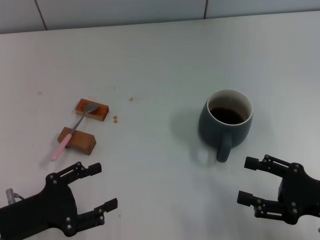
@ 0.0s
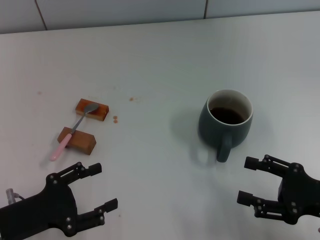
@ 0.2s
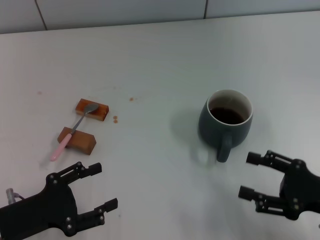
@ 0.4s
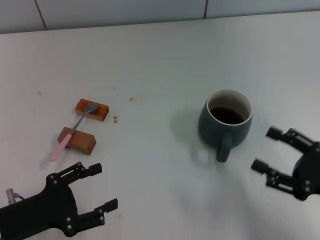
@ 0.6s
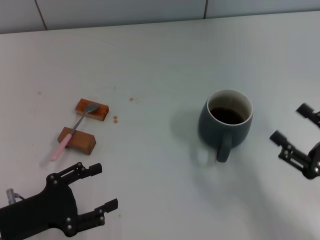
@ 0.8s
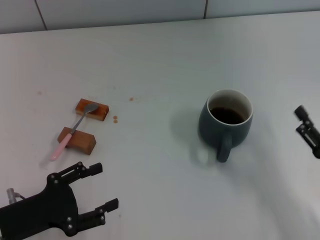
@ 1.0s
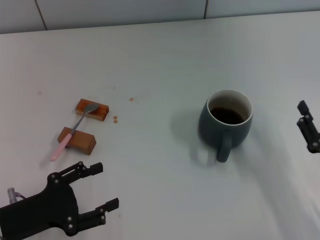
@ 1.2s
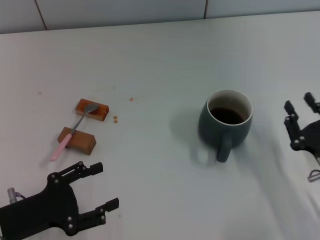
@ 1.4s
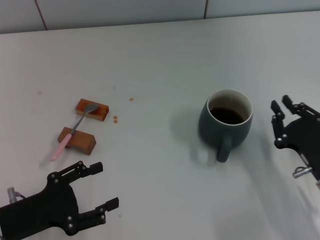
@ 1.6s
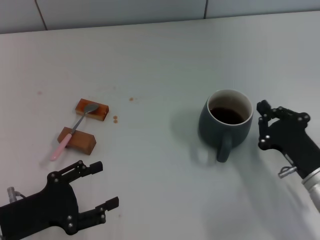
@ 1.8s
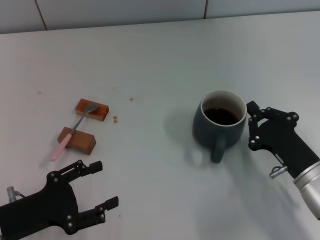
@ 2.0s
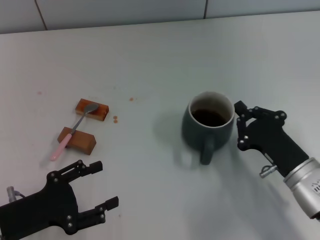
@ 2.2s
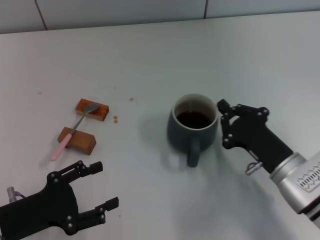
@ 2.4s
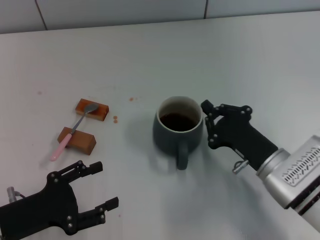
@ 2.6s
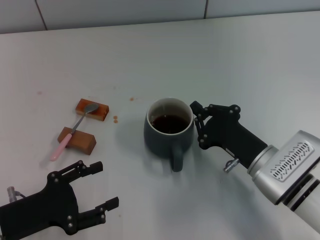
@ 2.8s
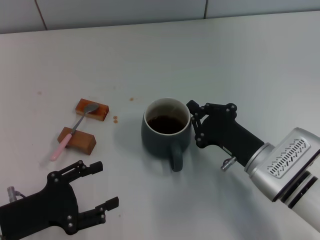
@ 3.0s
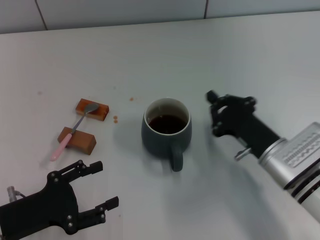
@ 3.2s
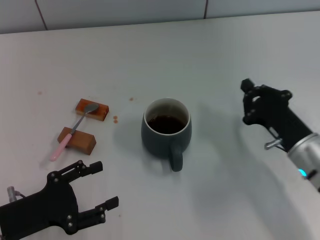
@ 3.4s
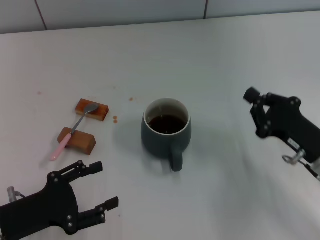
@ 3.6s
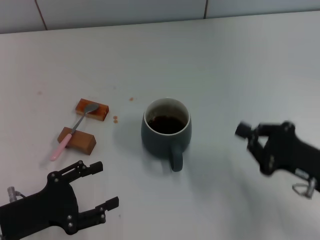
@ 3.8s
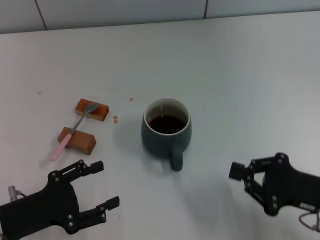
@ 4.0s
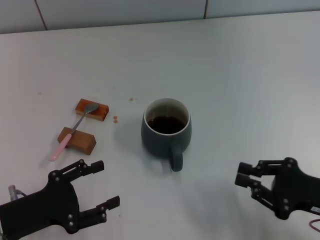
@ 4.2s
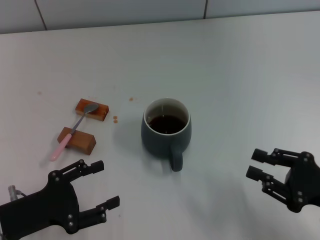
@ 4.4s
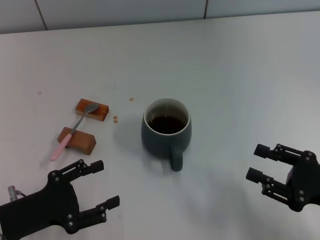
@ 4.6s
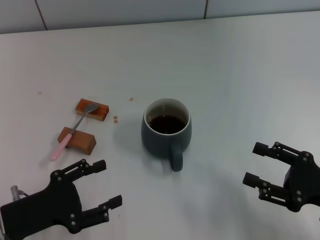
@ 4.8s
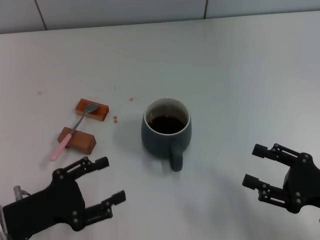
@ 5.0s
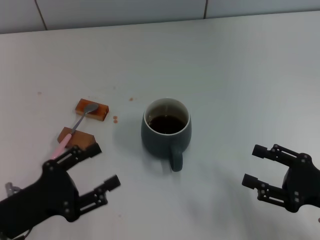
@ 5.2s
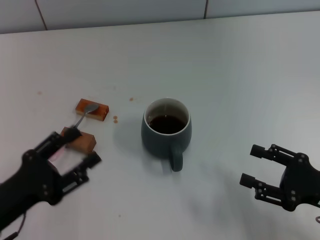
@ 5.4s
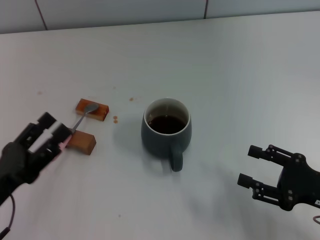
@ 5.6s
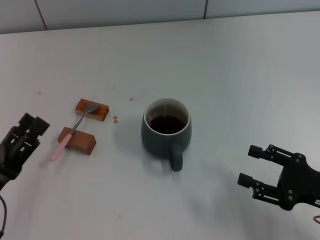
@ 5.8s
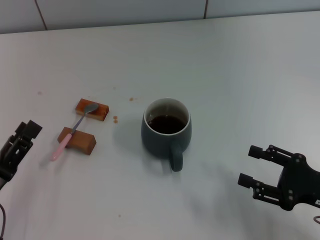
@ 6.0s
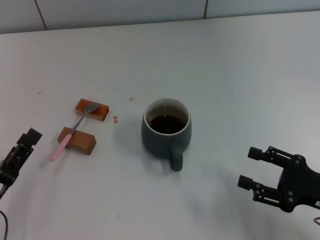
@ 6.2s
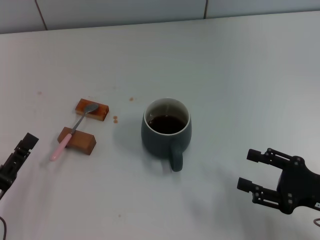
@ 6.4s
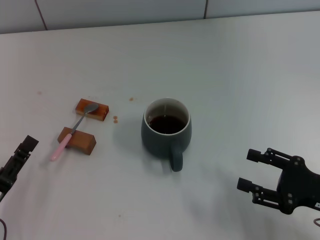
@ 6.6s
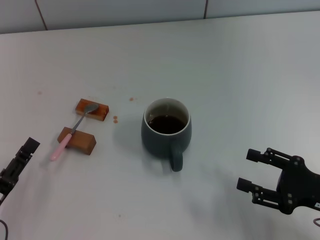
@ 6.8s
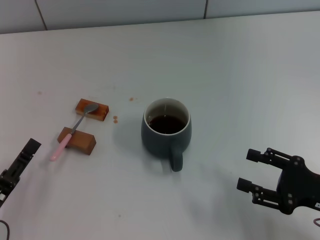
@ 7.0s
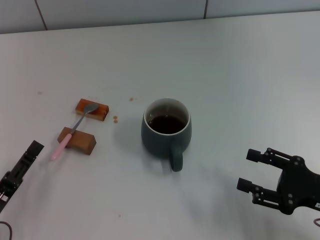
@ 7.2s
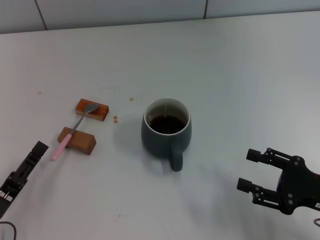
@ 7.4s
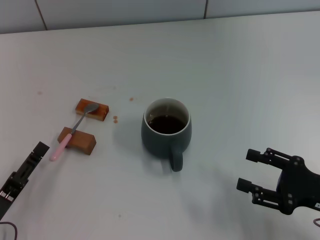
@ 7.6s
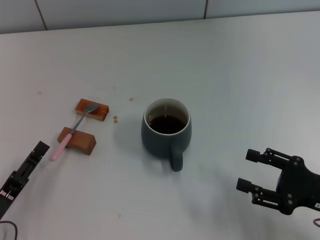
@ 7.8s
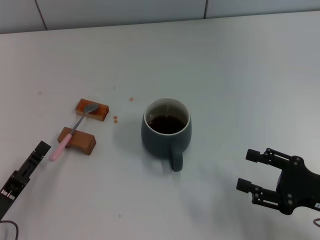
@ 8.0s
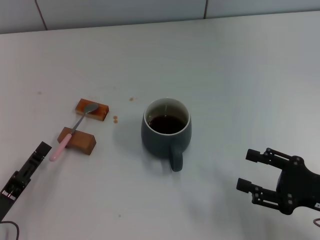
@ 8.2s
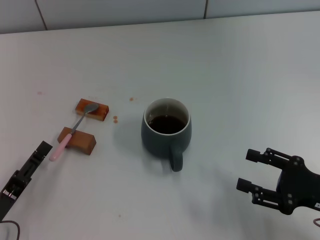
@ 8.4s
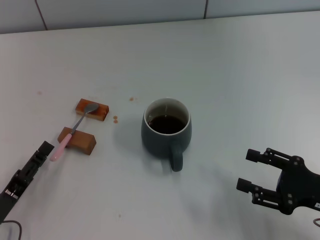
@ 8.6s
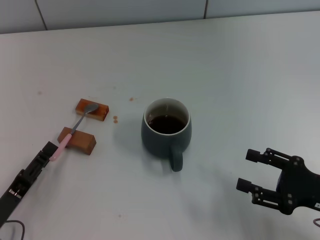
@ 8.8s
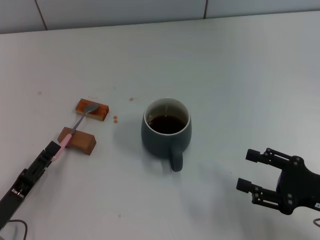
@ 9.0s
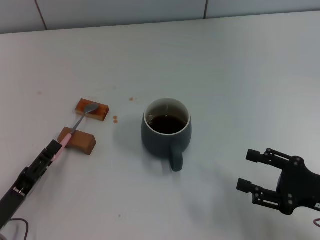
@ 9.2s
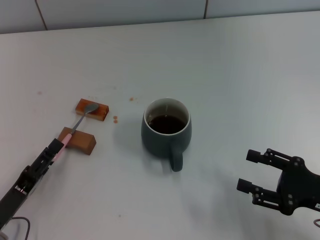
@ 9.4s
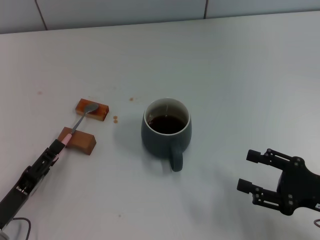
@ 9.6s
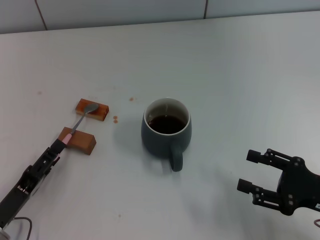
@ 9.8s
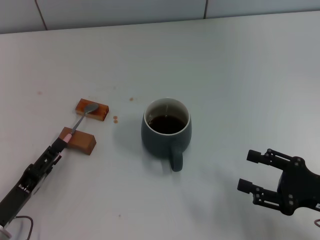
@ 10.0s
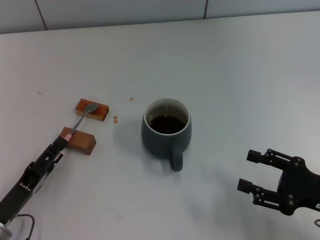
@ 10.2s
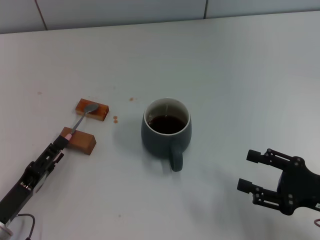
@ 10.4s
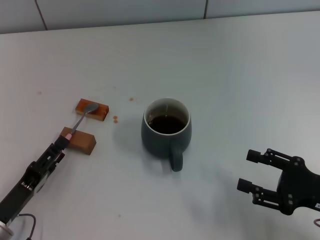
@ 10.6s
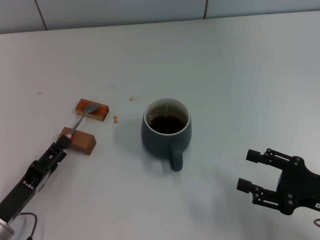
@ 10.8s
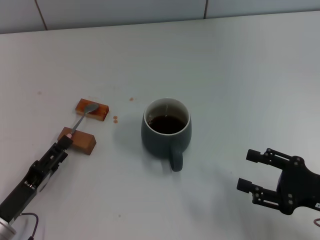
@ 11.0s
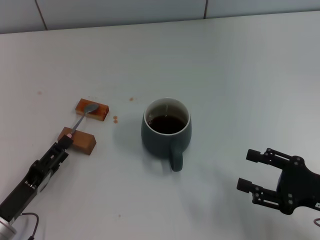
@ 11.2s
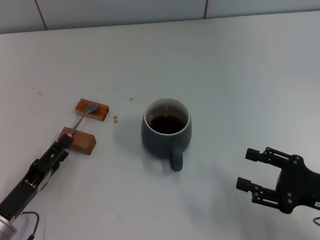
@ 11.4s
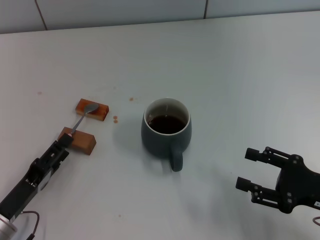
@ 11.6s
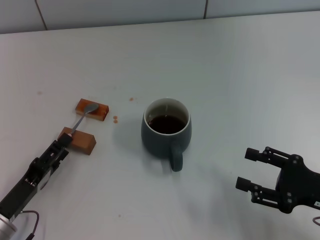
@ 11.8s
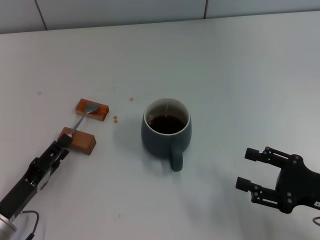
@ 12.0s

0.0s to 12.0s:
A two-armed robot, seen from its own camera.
Task of the whole recording: Move the grey cup to the center, lift the pink spoon, stir it three times in the cup, and put the spoon into the cup.
Step, 0.0s to 3.4s: Move the cup with coffee to the center of view with the right gripper.
0.0s to 1.6s: The right gripper ends up about 5 cm from where it was, and closes.
1.6s to 3.0s: The right gripper heads to the left, covering about 10 cm, and closes up.
3.0s to 4.4s: The right gripper travels to the right and backward by roughly 15 cm.
4.4s to 6.0s: The right gripper opens up.
6.0s to 7.6s: The grippers stay close to where they were, moving slightly.
7.6s to 9.0s: There are only small adjustments of the grippers.
9.0s to 10.4s: Neither gripper changes place.
10.4s to 12.0s: The two grippers keep their place.

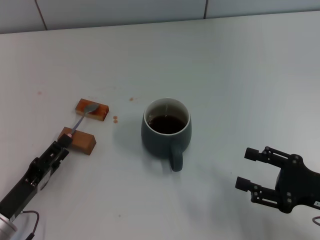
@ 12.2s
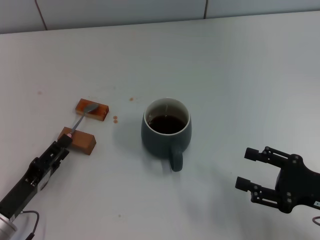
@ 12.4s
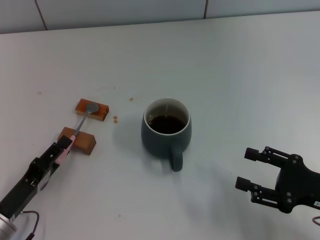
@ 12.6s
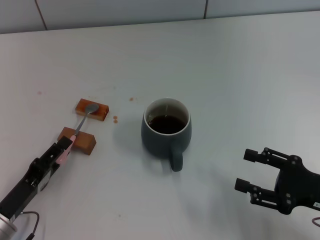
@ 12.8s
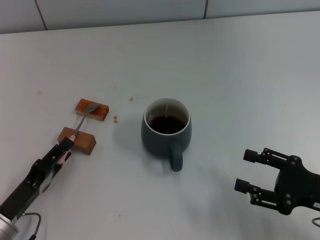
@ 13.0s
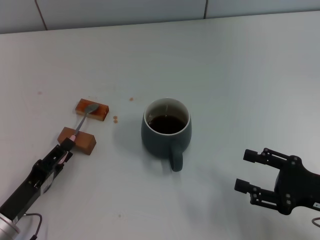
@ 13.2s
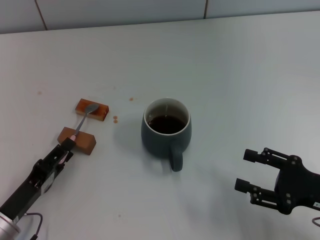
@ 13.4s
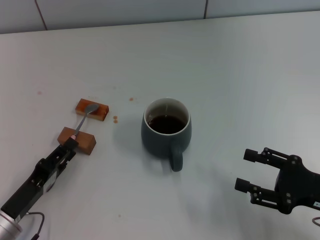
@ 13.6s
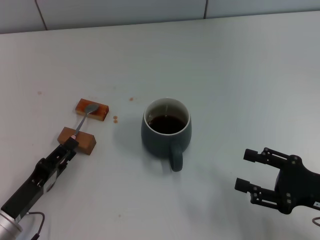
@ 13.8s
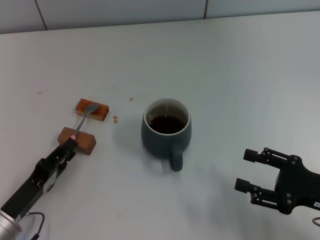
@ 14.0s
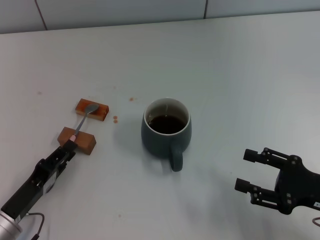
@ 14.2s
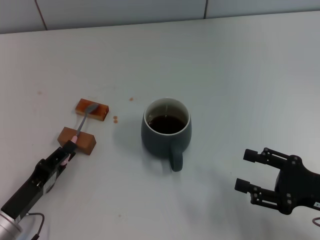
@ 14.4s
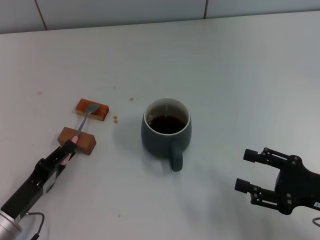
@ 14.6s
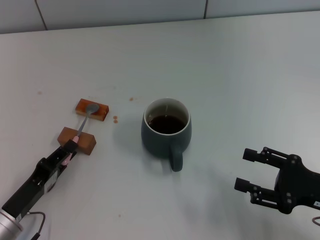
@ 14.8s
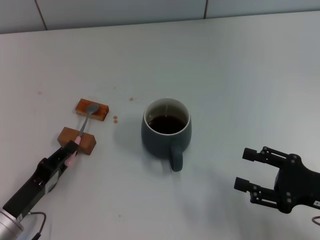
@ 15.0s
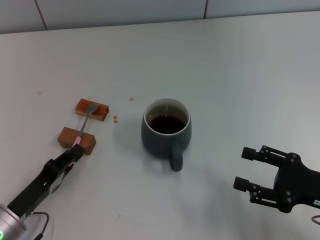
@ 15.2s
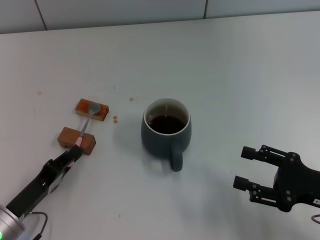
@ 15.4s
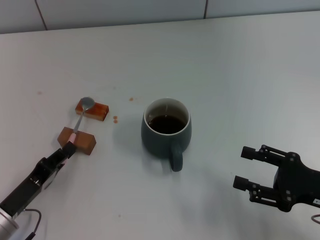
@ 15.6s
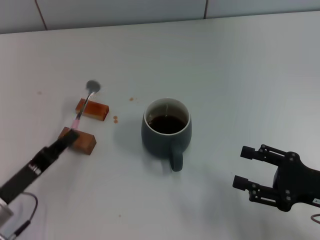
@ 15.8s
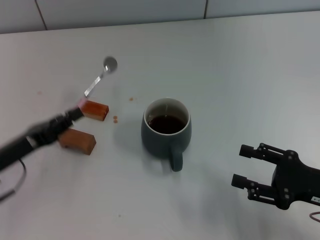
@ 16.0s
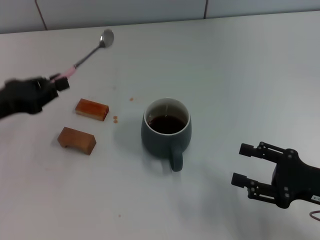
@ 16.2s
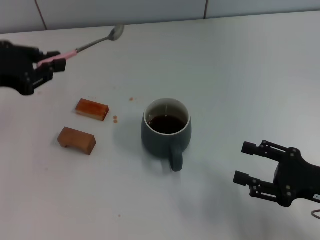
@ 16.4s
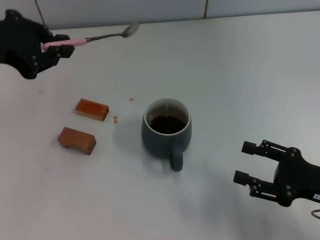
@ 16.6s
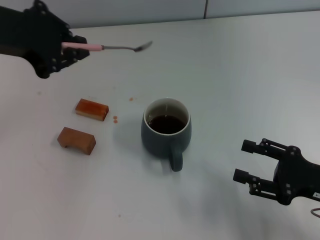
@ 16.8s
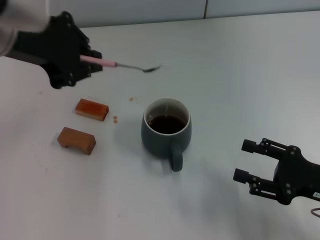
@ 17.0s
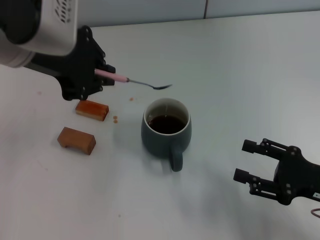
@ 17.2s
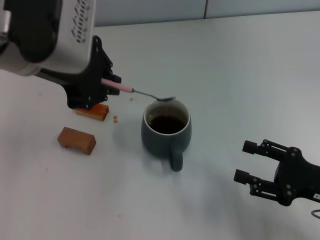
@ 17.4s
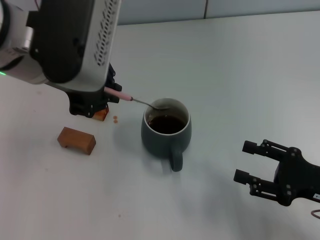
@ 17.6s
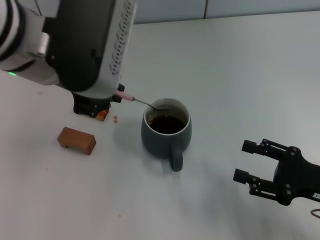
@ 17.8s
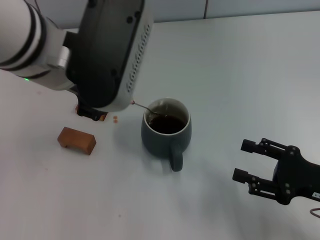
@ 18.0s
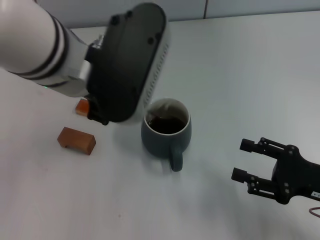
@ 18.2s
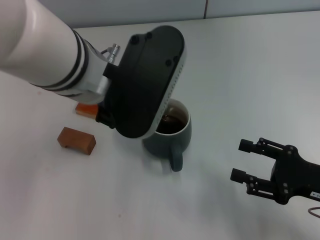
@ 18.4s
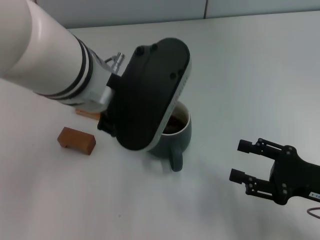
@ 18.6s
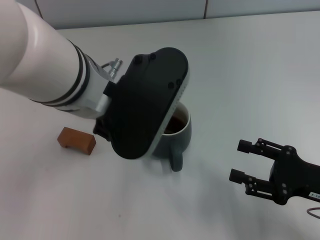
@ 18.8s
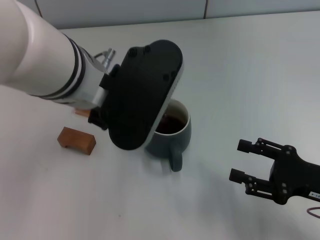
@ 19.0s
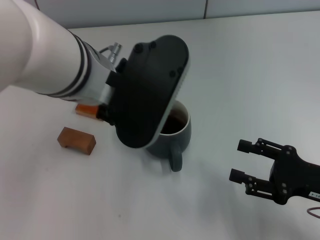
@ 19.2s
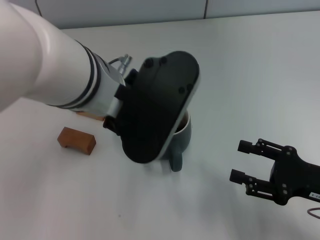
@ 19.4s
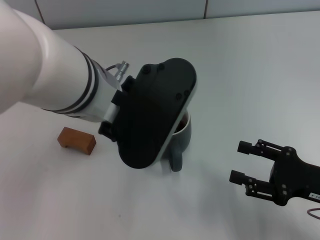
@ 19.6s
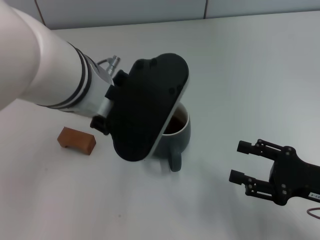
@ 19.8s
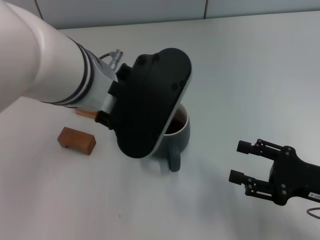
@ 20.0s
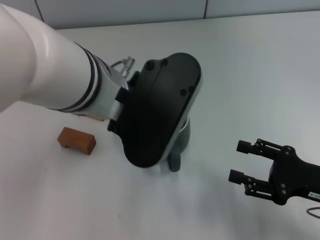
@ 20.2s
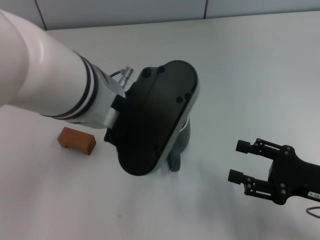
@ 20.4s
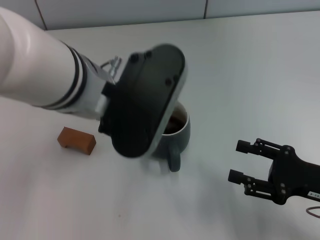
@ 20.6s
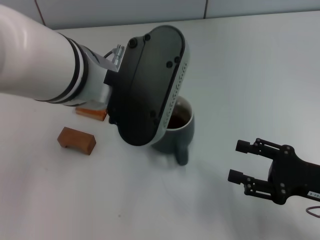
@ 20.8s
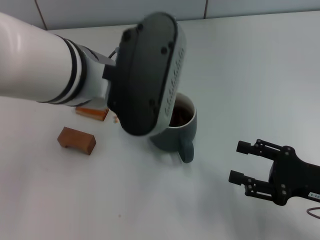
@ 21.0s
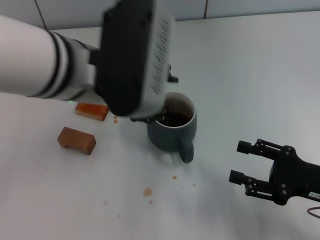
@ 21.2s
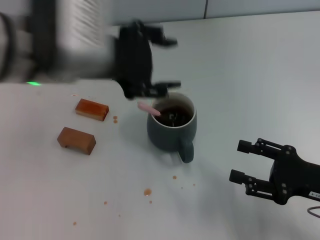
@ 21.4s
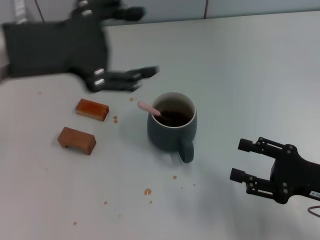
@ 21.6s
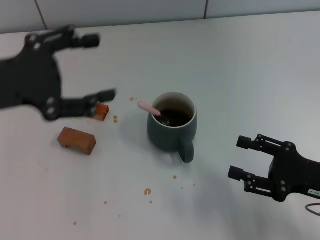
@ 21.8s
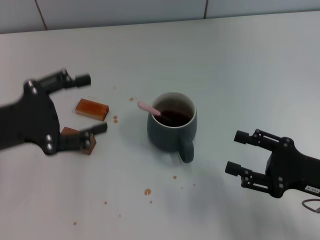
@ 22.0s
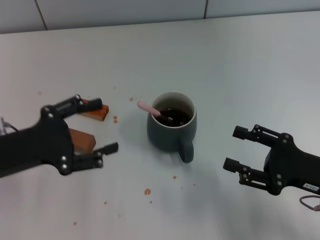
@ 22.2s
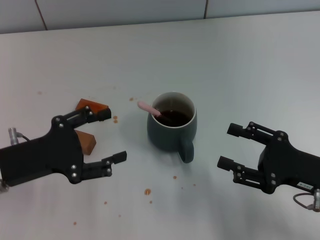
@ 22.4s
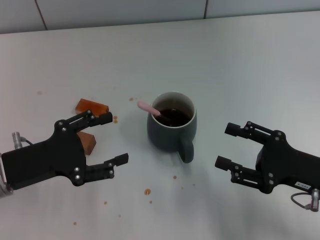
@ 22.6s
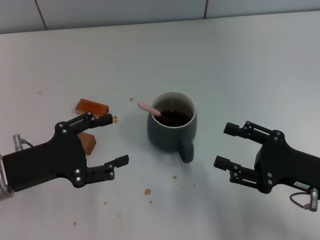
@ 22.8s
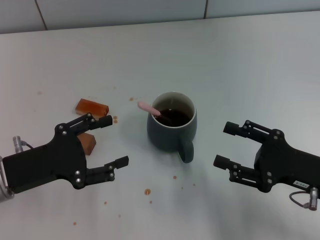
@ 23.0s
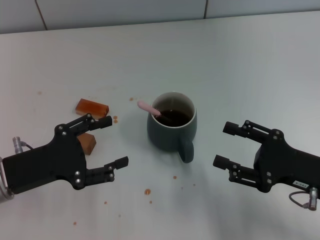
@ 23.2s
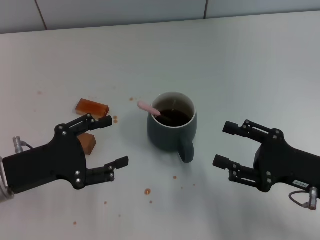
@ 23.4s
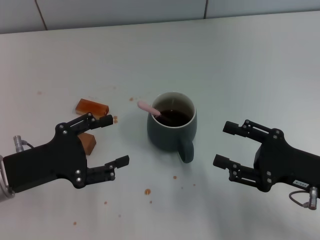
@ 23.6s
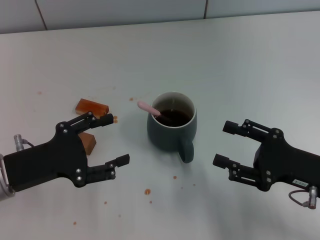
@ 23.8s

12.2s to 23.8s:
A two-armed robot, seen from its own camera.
Task of the whole recording: Move the grey cup to the center, lift the pink spoon, stir it three times in the cup, and put the spoon into the cup.
Step, 12.2s to 15.8s: Pick up the spoon with the left gripper.
Step, 16.0s to 21.6s: Stir the coffee in the cup with the left gripper.
12.2s to 15.0s: Both grippers stay about where they are.
15.0s to 16.6s: The left gripper heads upward and forward, covering about 30 cm.
16.6s to 18.0s: The left gripper shifts roughly 15 cm to the right.
18.0s to 19.4s: The left gripper shifts by roughly 5 cm.
19.4s to 21.0s: There are only small adjustments of the grippers.
21.0s to 22.4s: The left gripper goes roughly 20 cm to the left and downward, and opens its fingers.
22.4s to 23.8s: The grippers make only small movements.
